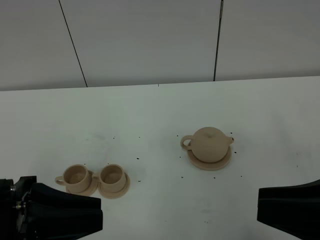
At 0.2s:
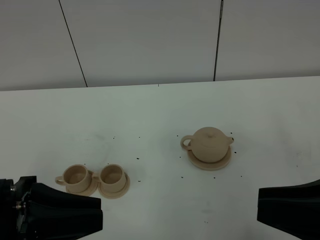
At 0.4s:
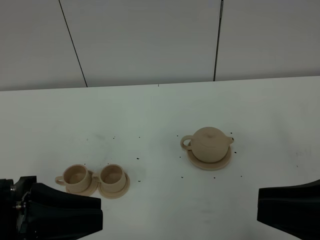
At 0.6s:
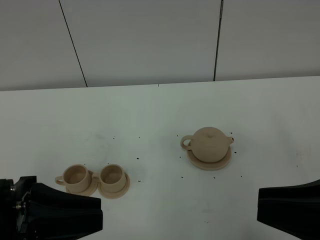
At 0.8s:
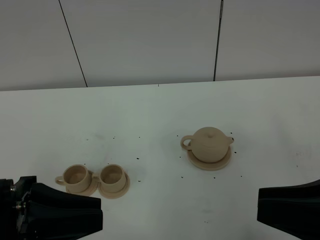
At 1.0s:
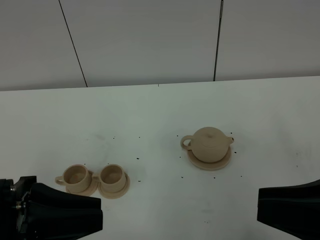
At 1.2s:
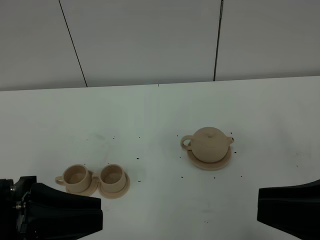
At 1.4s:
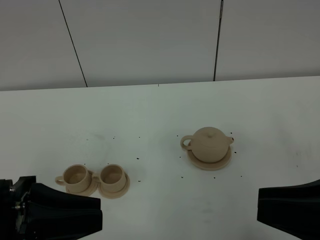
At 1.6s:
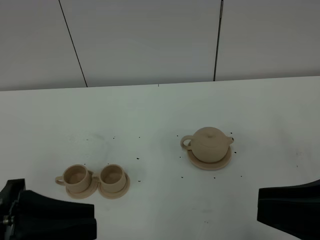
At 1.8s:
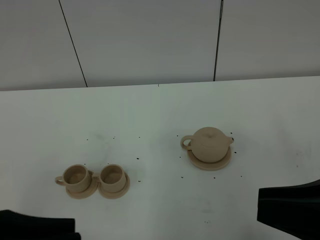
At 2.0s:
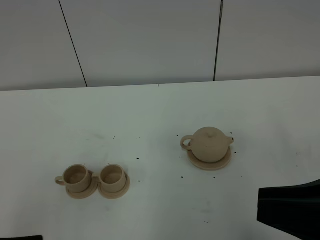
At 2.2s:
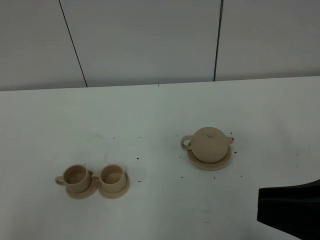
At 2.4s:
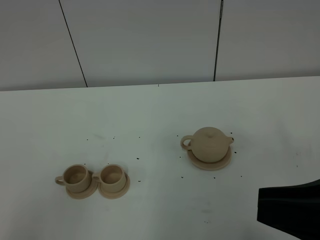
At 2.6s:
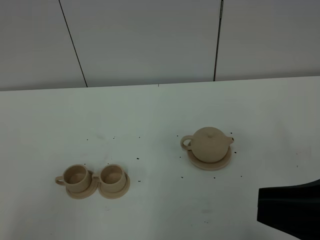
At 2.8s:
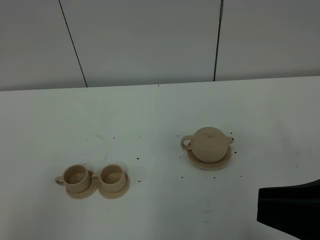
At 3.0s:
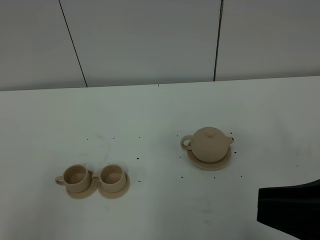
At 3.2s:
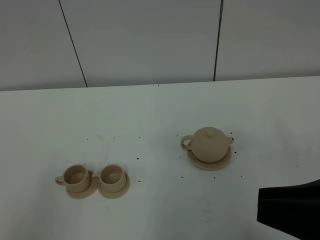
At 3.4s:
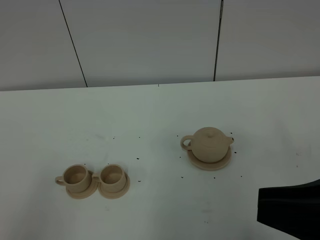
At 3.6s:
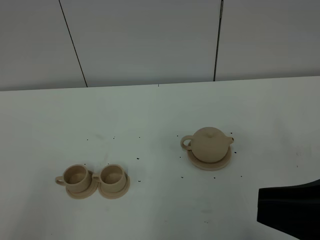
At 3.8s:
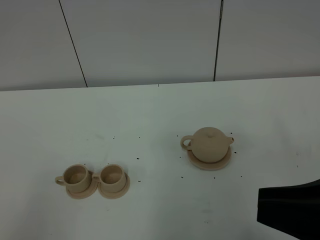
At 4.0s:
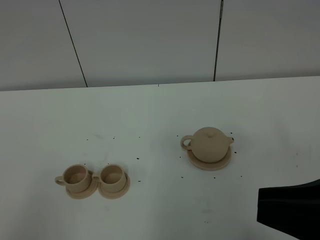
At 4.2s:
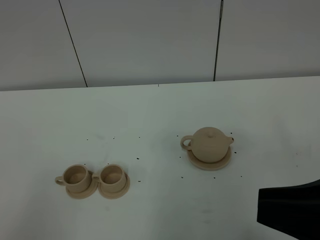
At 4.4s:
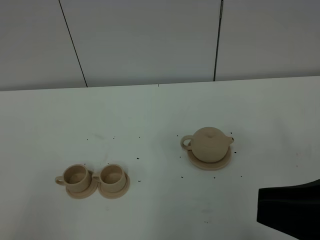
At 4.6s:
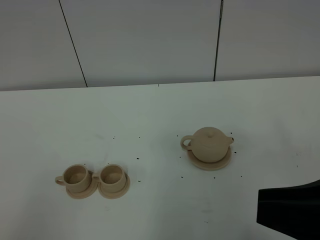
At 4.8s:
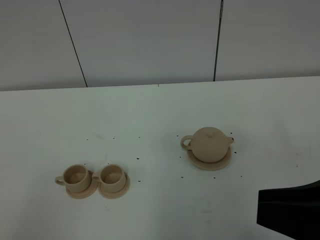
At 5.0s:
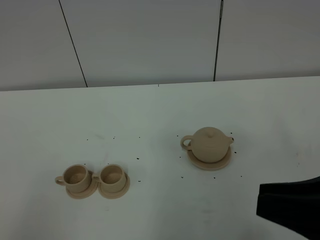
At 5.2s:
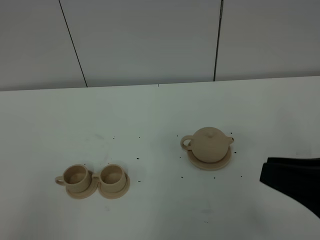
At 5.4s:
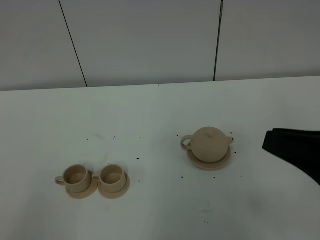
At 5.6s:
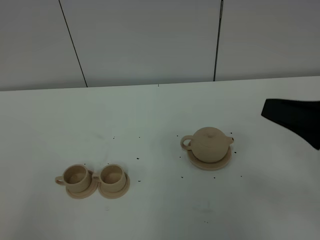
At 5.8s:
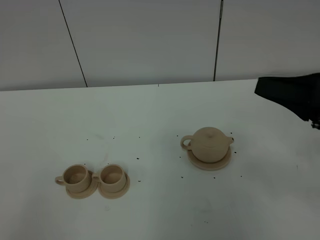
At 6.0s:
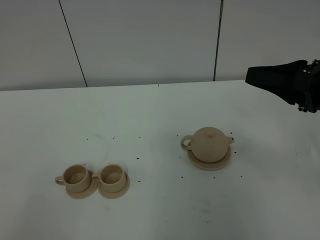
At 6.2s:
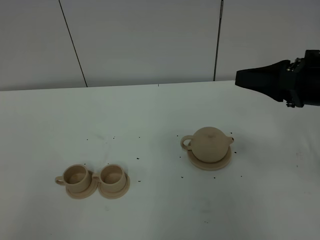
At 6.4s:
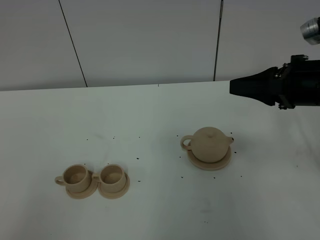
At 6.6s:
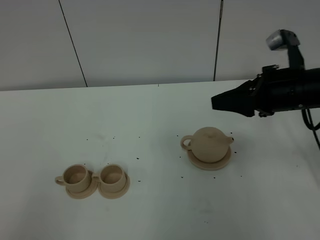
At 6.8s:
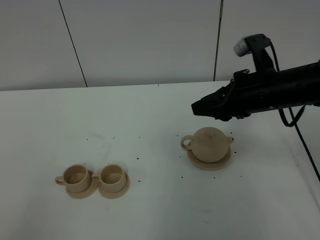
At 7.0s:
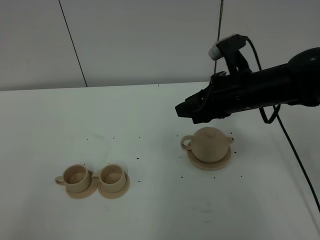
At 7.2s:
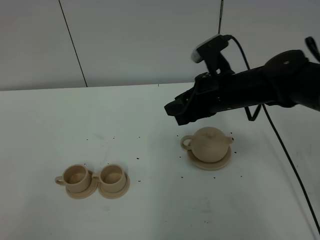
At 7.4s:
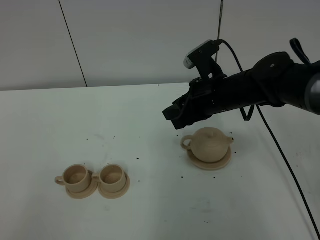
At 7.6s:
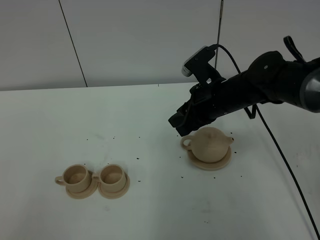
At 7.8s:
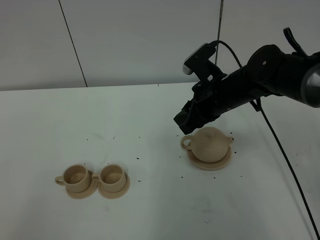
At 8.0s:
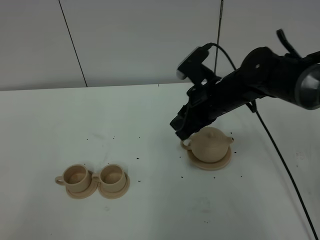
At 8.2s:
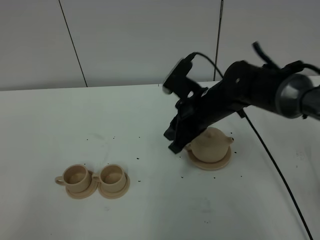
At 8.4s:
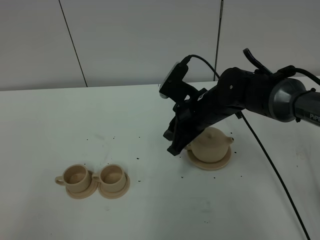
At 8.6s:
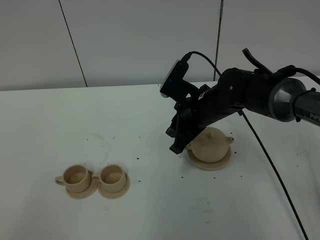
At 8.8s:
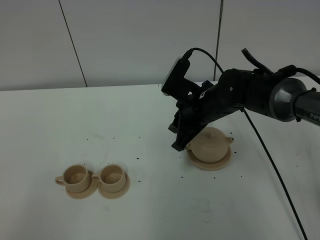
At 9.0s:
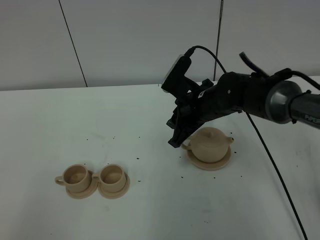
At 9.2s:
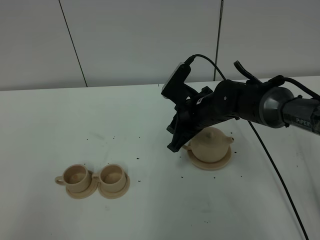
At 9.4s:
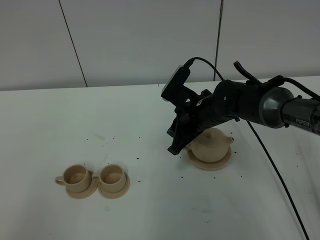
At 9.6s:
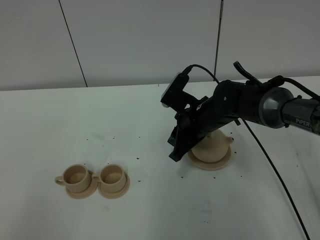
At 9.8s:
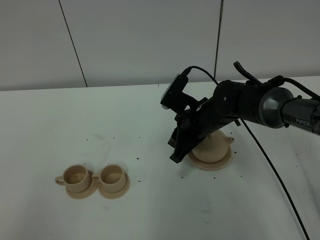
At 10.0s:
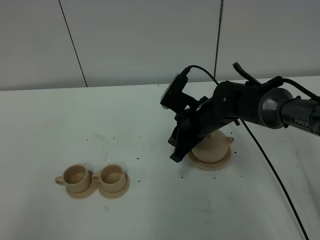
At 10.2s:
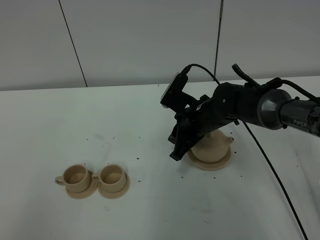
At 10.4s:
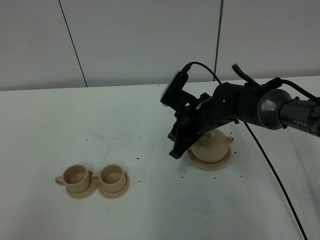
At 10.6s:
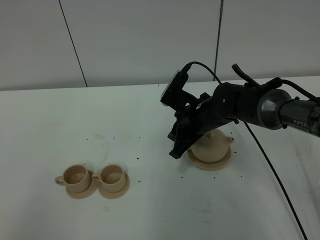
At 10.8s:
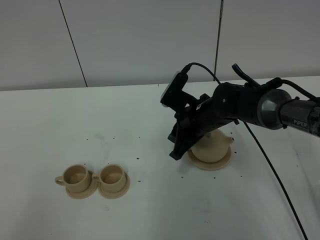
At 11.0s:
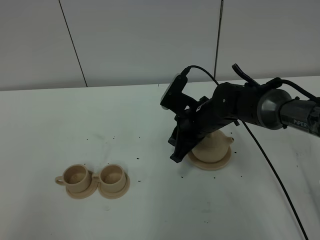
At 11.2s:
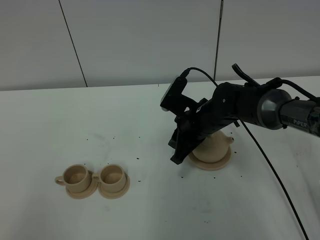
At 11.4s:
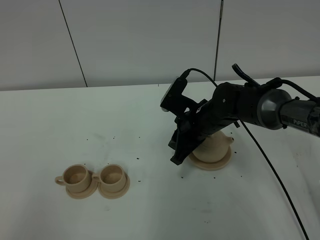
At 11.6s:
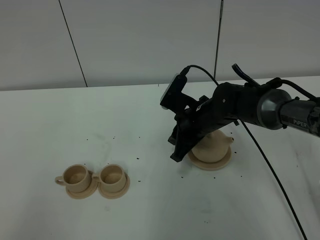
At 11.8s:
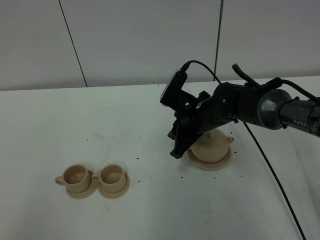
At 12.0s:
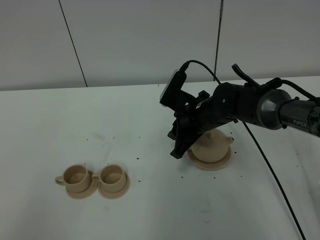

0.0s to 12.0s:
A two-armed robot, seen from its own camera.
Task of the whole recording: grasp the brown teapot and pour the tea into the two brown teacups one by one, put the brown teapot back in its original place.
0.0s to 1.6s: The grippers stay close to where they were, moving slightly.
1.6s to 3.0s: The left gripper travels backward and to the left by some 10 cm.
4.4s to 6.0s: The right gripper shifts approximately 15 cm forward.
6.0s to 7.6s: The right gripper heads to the left, forward and downward, covering roughly 20 cm.
7.6s to 9.0s: The right gripper moves about 5 cm.
9.0s to 12.0s: The grippers make only small movements.

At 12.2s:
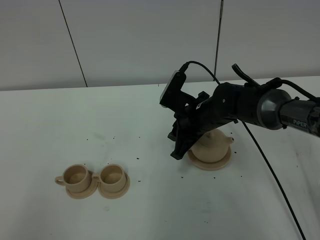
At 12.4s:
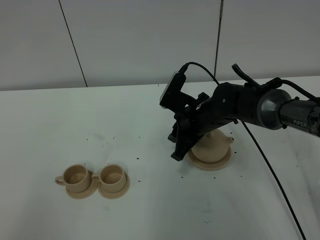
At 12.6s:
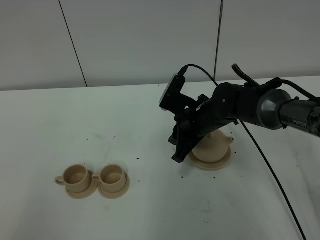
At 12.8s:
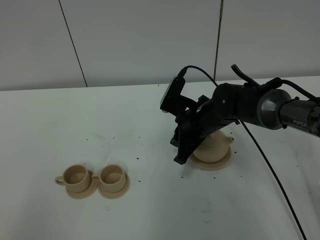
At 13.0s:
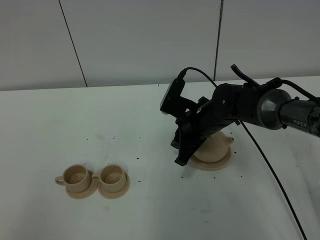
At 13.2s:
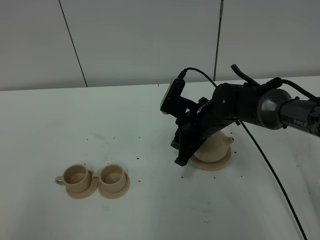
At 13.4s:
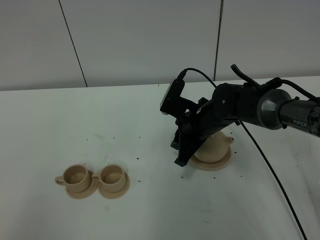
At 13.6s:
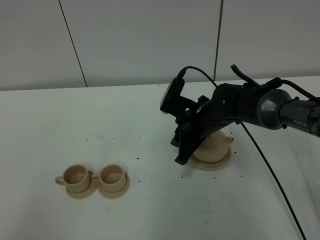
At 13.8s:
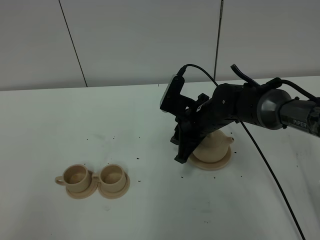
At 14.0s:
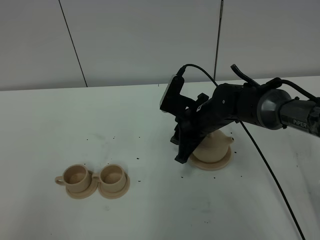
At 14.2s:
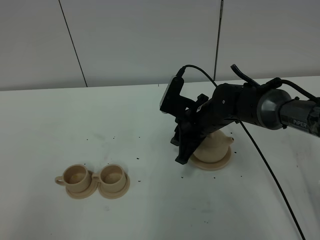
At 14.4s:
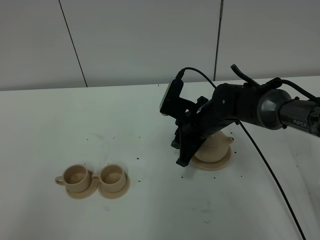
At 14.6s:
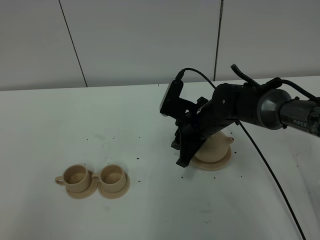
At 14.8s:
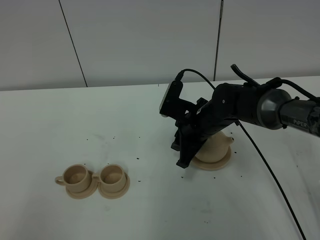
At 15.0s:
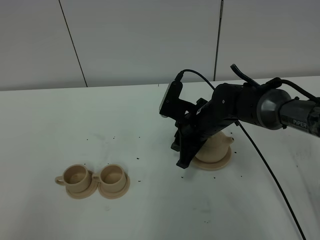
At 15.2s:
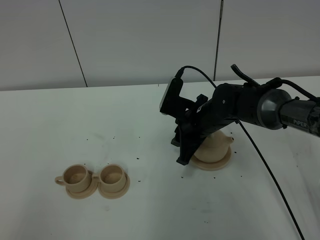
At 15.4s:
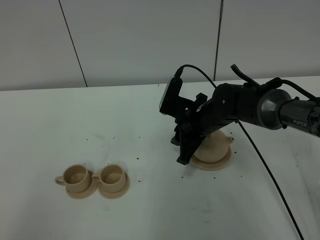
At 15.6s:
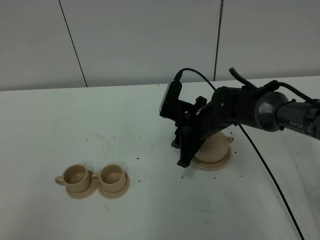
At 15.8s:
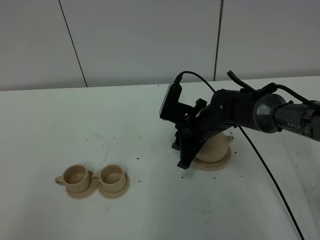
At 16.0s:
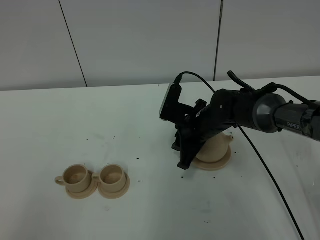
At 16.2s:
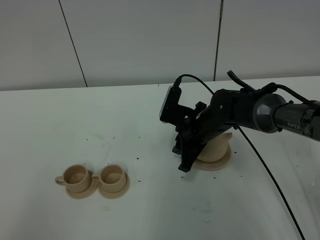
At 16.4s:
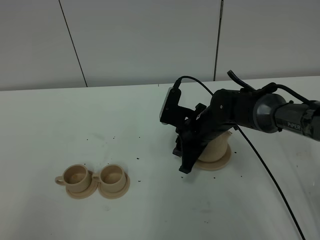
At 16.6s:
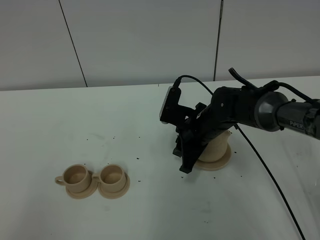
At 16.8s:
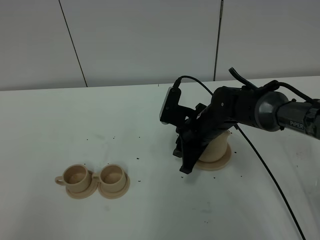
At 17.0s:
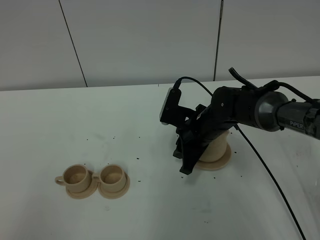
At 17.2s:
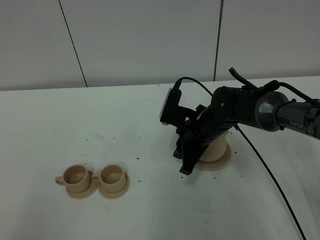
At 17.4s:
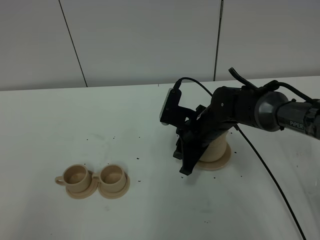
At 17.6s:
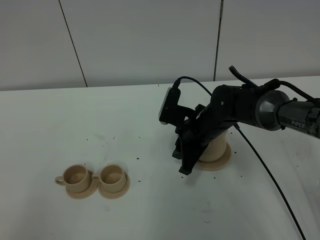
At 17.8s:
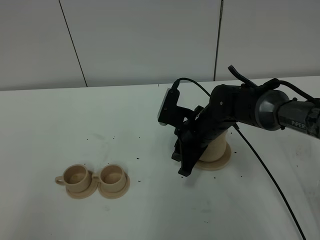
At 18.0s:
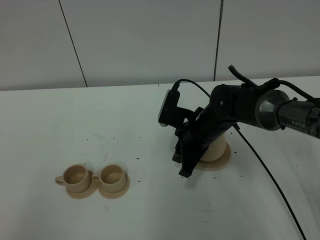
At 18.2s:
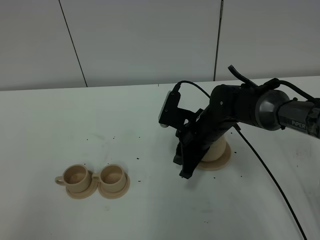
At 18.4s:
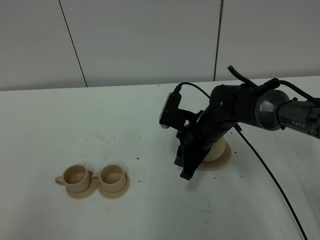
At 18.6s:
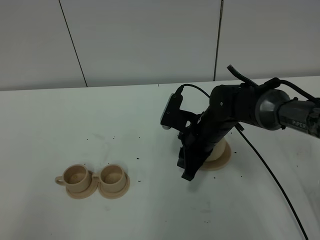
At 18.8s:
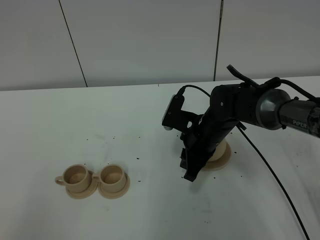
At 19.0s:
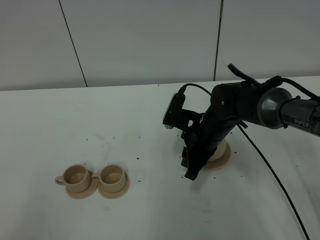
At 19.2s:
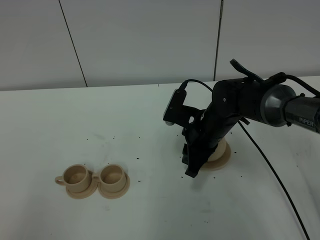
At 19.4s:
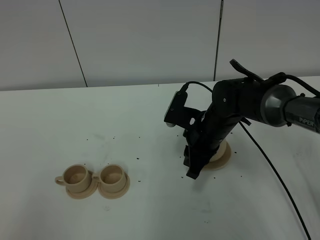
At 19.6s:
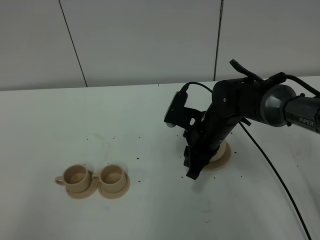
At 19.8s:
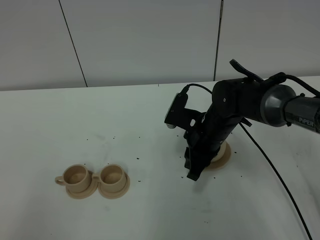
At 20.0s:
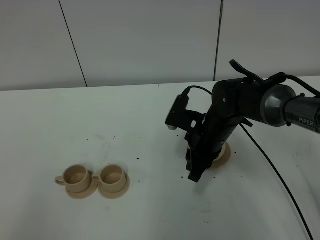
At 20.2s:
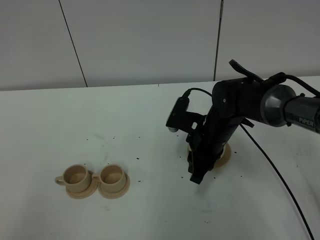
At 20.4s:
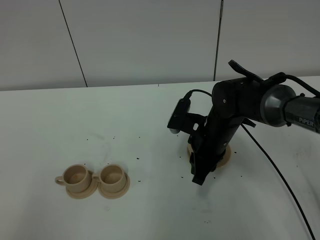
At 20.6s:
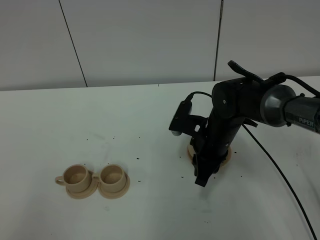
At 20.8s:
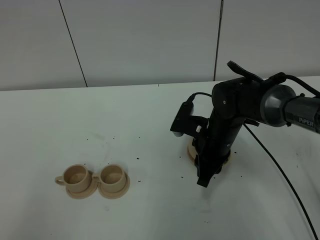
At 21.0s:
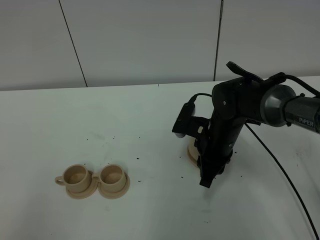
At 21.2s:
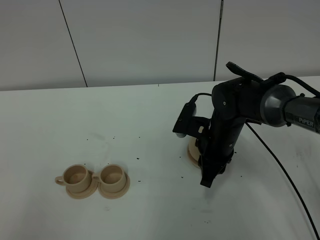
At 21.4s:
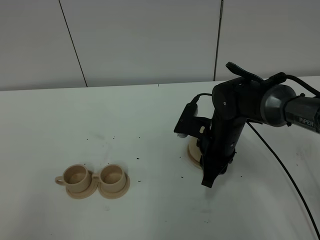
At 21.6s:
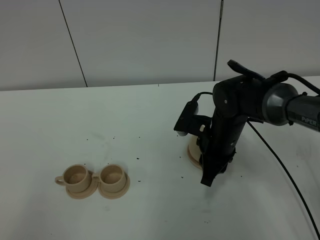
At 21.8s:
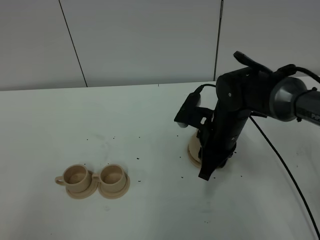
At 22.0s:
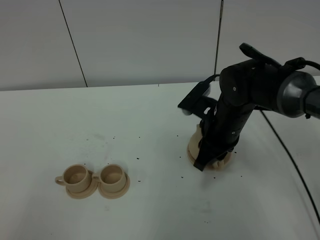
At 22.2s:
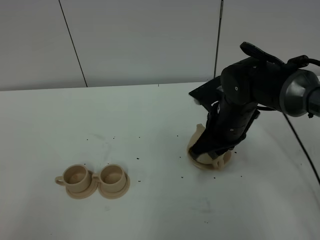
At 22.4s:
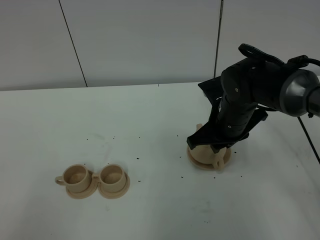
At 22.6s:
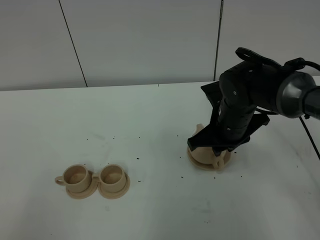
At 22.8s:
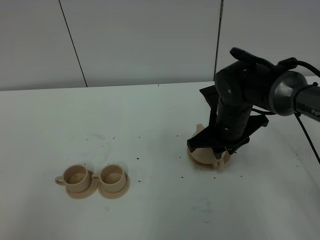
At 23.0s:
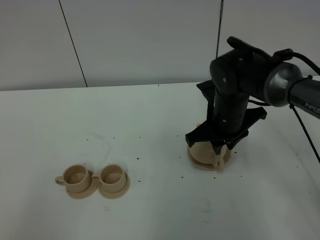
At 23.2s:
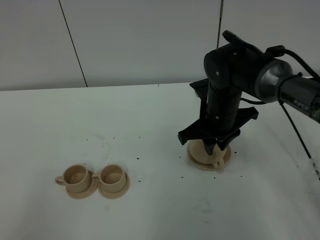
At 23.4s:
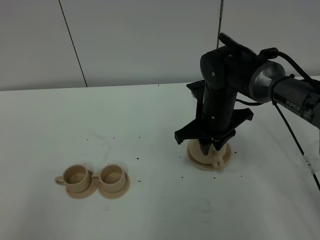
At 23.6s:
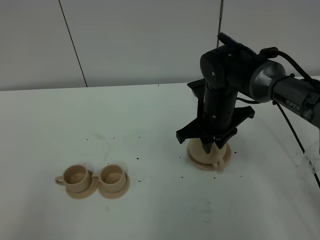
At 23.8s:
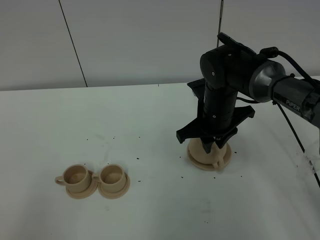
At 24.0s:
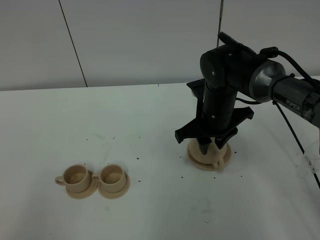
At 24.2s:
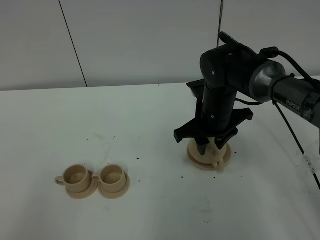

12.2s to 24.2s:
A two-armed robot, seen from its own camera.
Task of the whole recording: grasp the brown teapot and pour the tea into the two brown teacups one by one, put the brown teapot back in its original place.
12.2s to 13.8s: The grippers make only small movements.
13.8s to 15.2s: Both grippers stay about where they are.
15.2s to 19.8s: The grippers move only a little.
19.8s to 21.2s: There are only small adjustments of the grippers.
22.6s to 24.2s: The right gripper opens its fingers.
